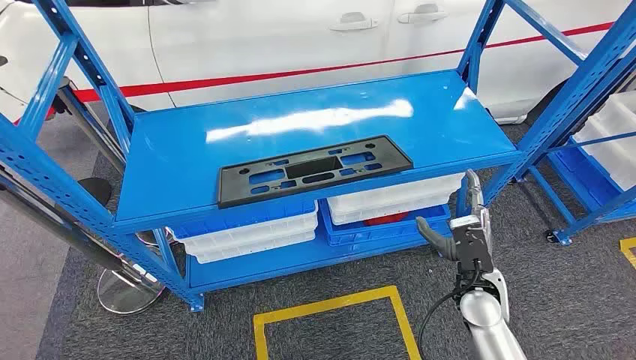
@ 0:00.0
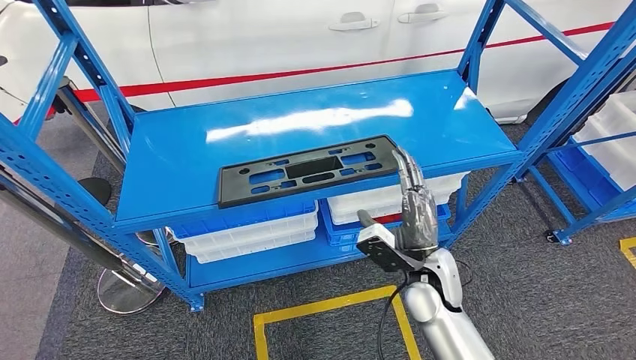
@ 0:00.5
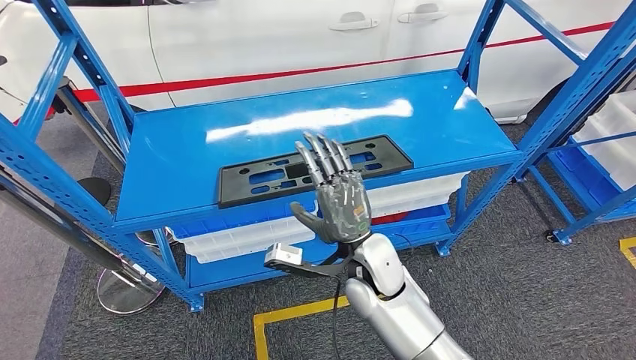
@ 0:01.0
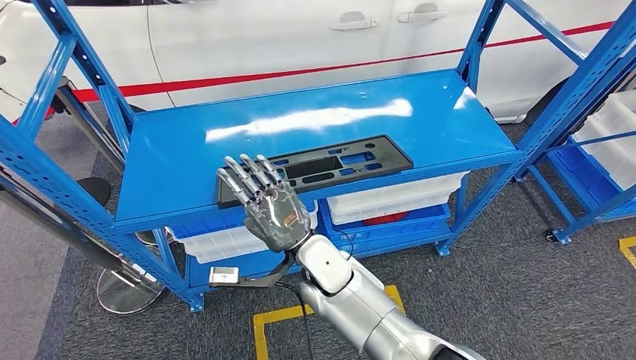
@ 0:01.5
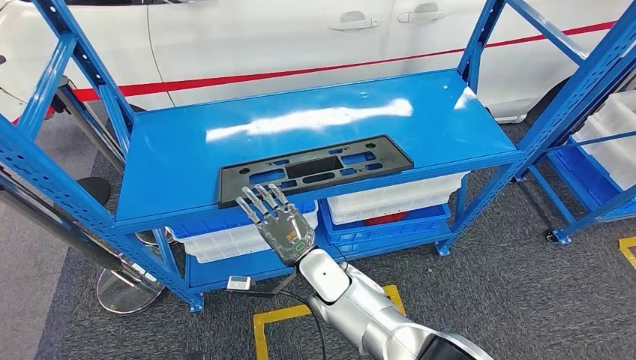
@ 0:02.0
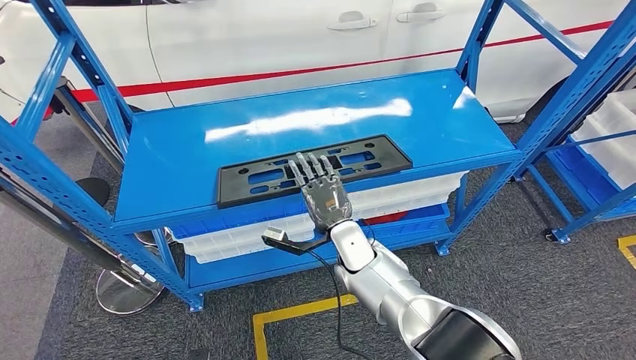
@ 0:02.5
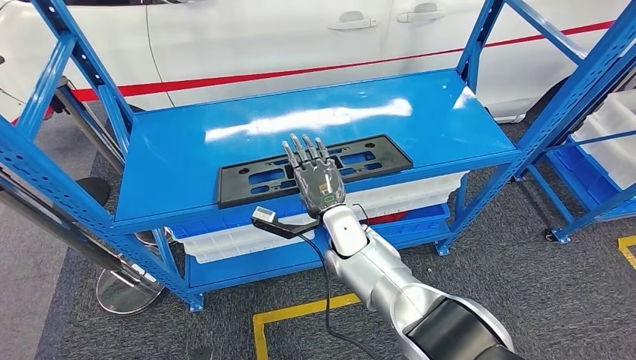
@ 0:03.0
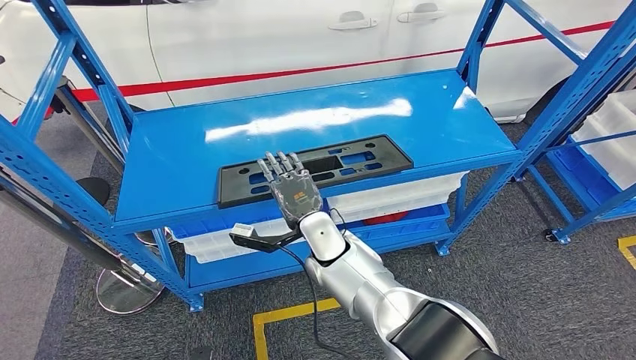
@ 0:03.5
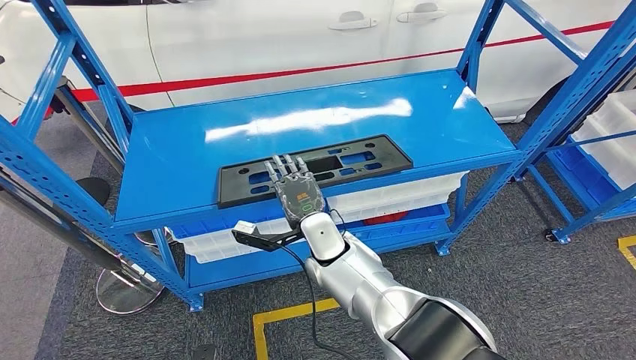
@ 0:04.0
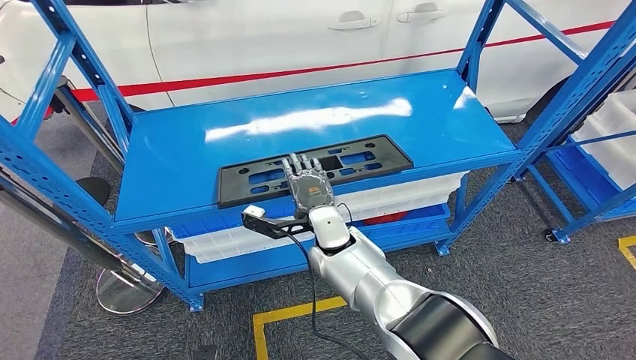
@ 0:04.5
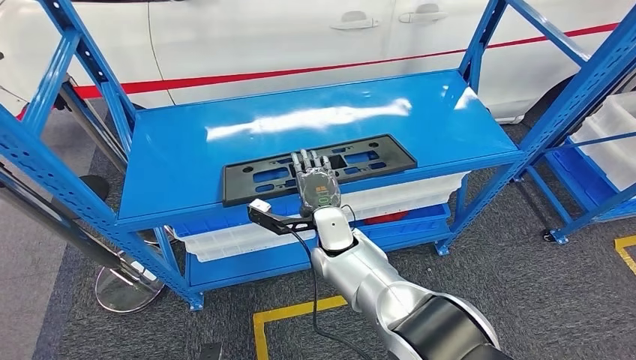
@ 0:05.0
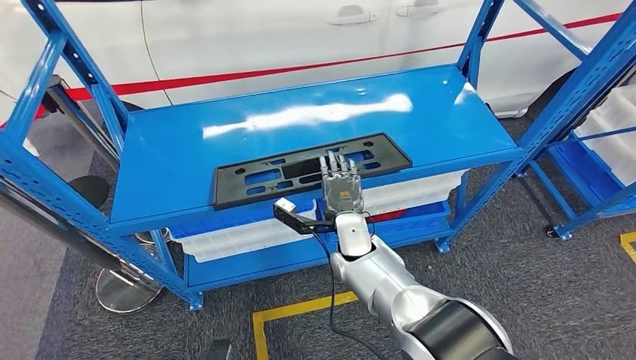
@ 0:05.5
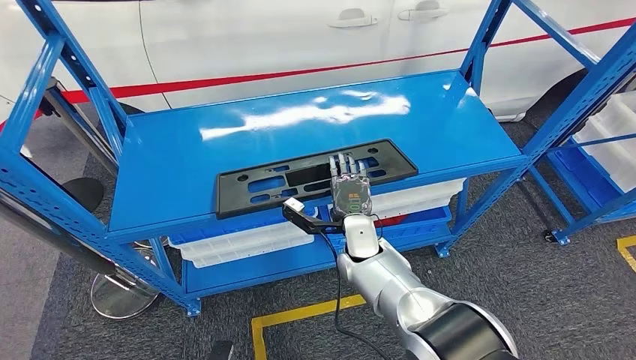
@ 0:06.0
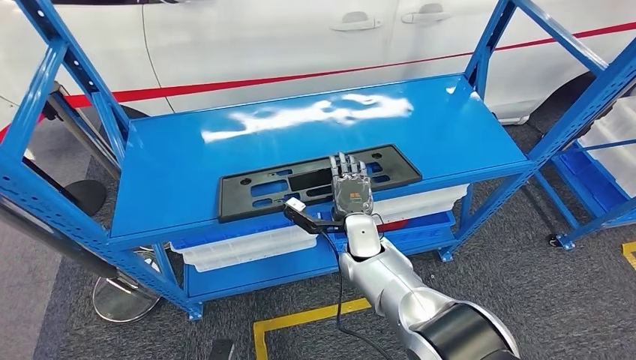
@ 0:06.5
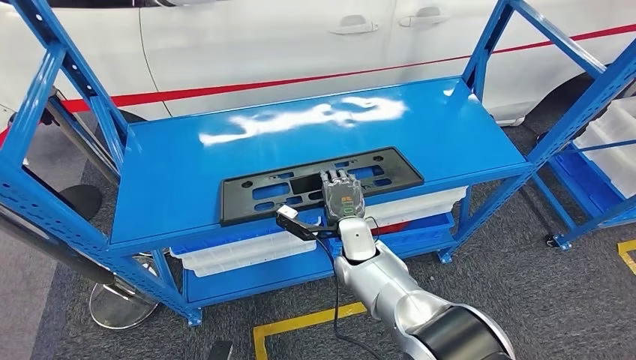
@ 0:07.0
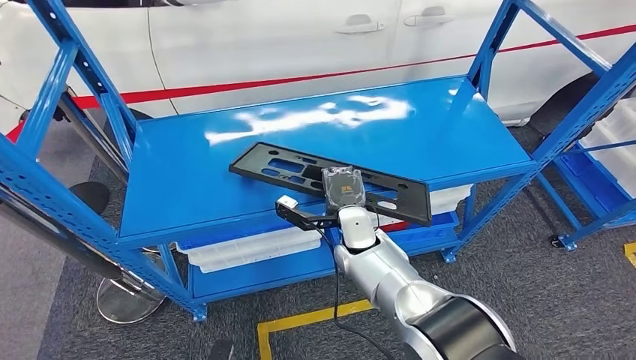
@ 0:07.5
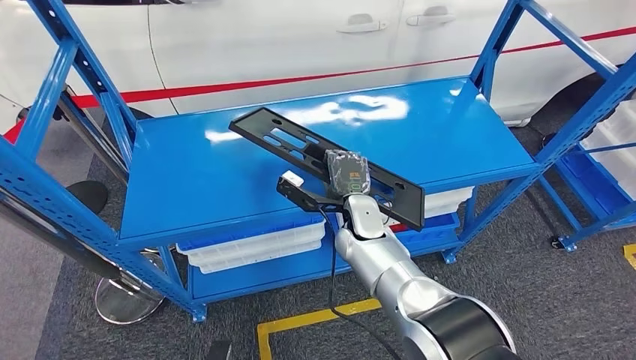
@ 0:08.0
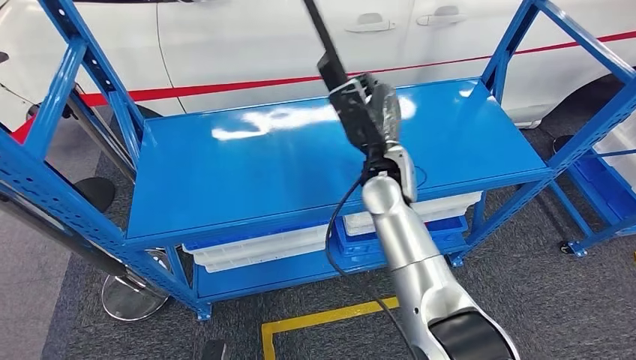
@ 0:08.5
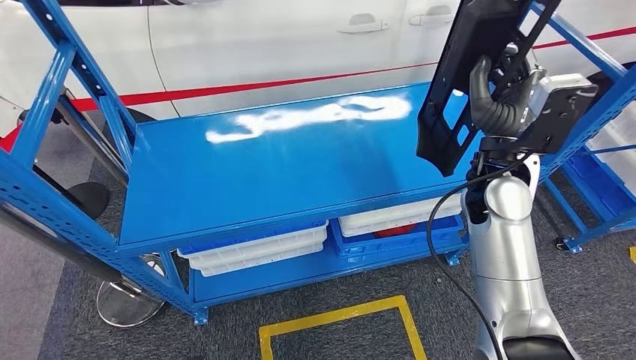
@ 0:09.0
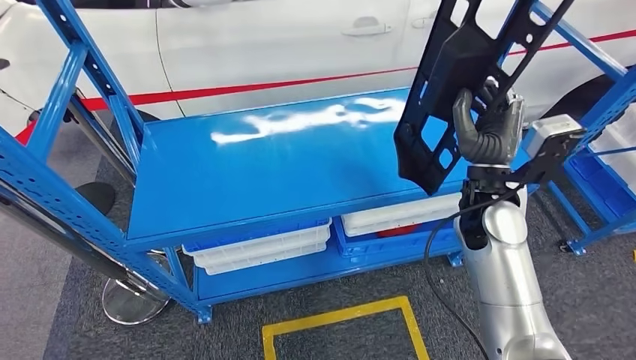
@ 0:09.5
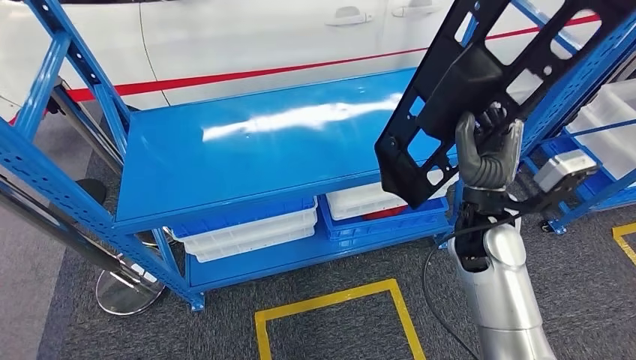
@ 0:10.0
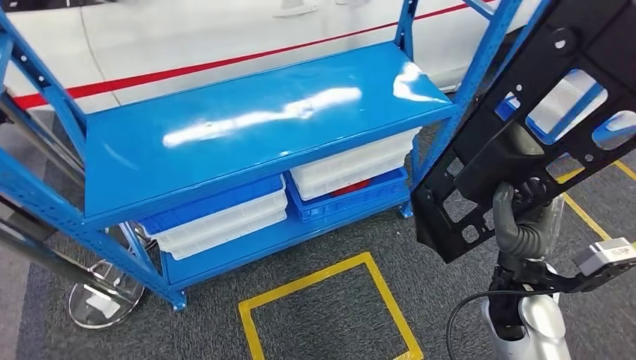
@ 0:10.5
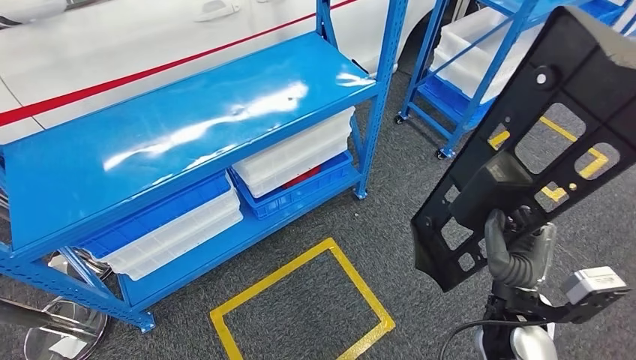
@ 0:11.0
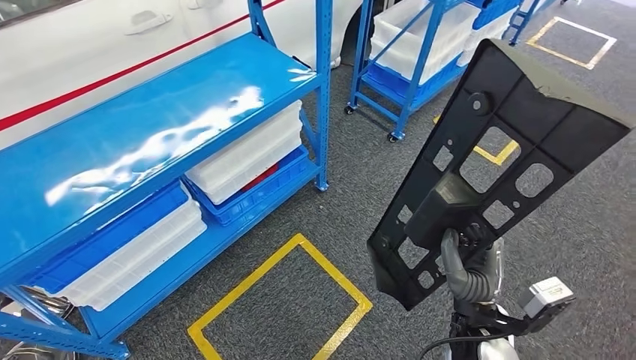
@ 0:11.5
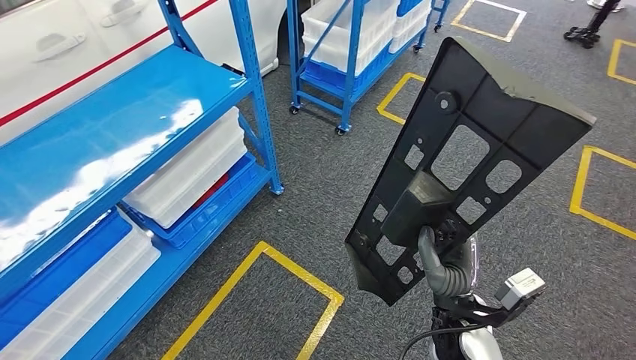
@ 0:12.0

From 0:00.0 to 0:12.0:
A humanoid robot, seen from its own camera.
Step, from 0:00.0 to 0:08.5: Pick up the large material from the shelf.
From 0:02.0 to 0:04.0: The right hand shifts by roughly 5 cm.

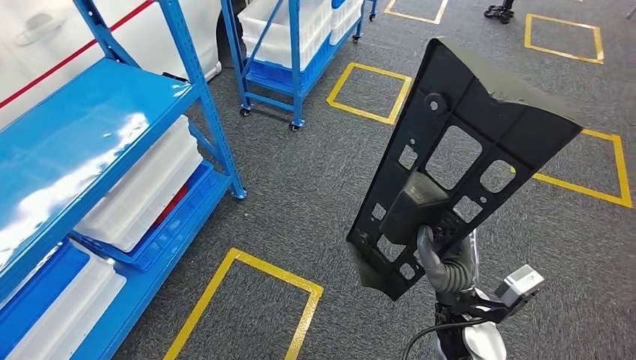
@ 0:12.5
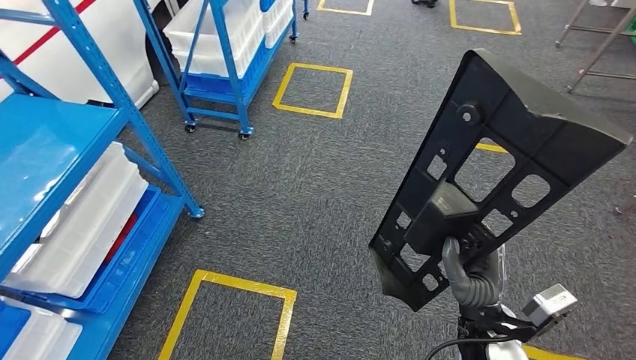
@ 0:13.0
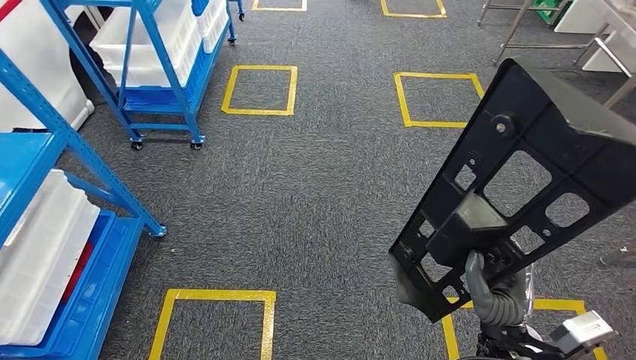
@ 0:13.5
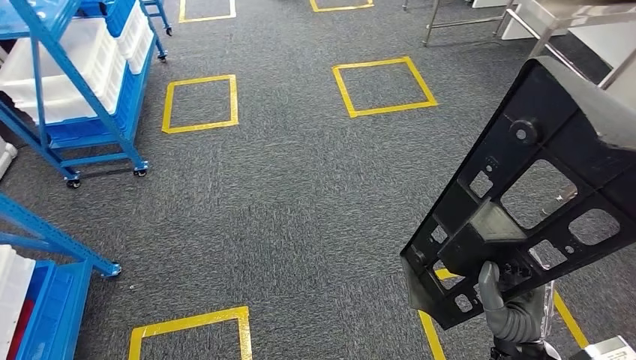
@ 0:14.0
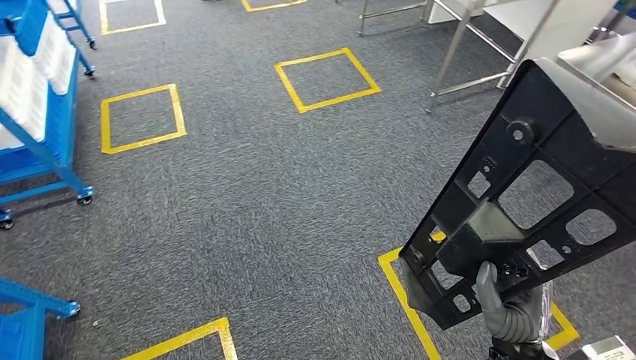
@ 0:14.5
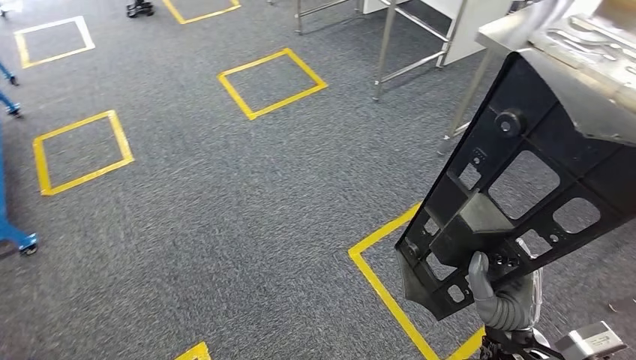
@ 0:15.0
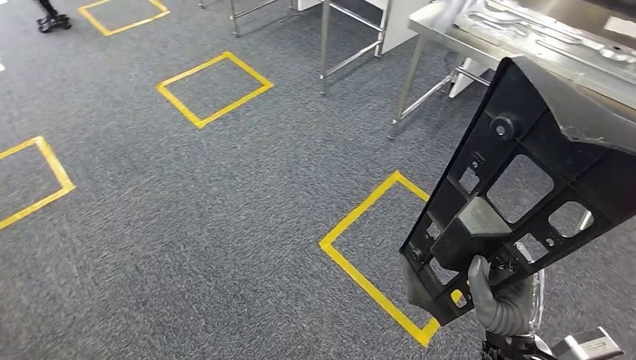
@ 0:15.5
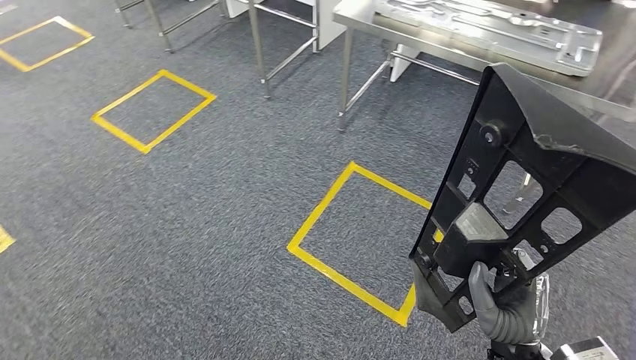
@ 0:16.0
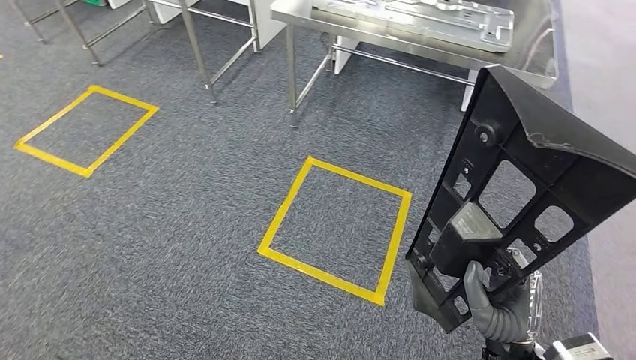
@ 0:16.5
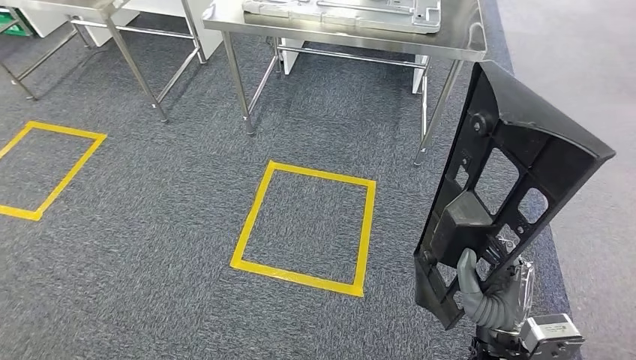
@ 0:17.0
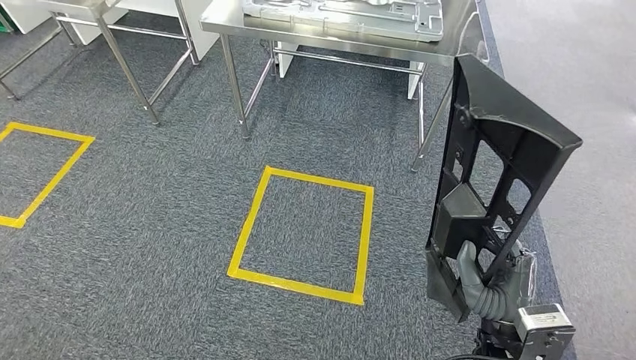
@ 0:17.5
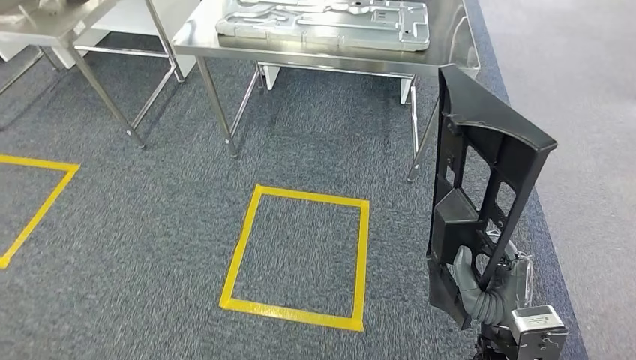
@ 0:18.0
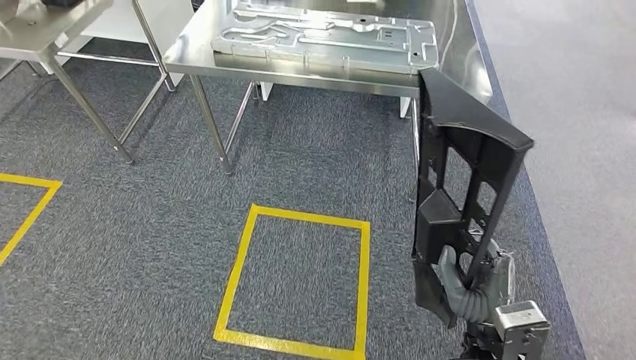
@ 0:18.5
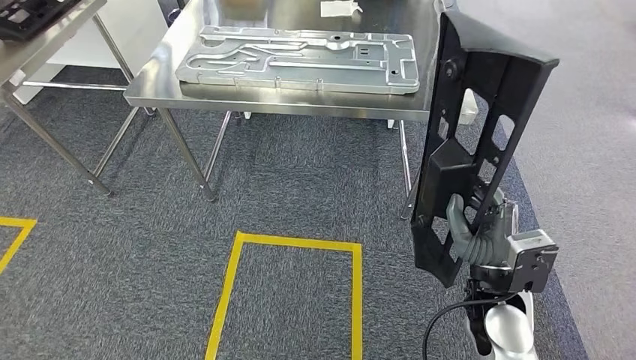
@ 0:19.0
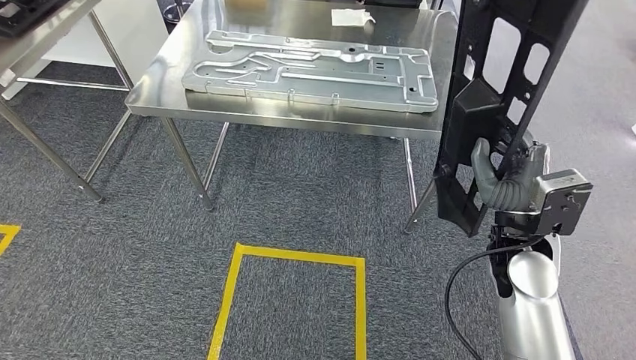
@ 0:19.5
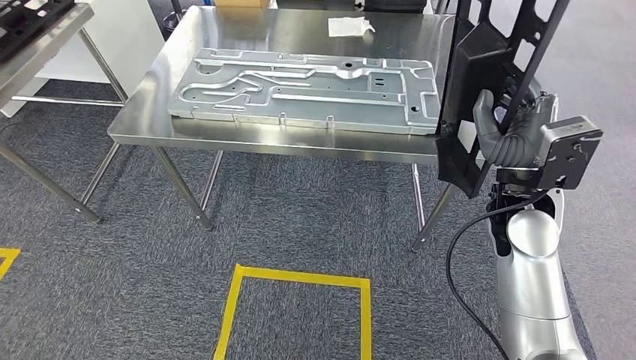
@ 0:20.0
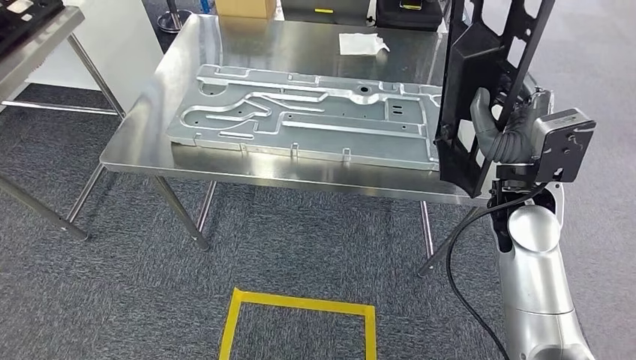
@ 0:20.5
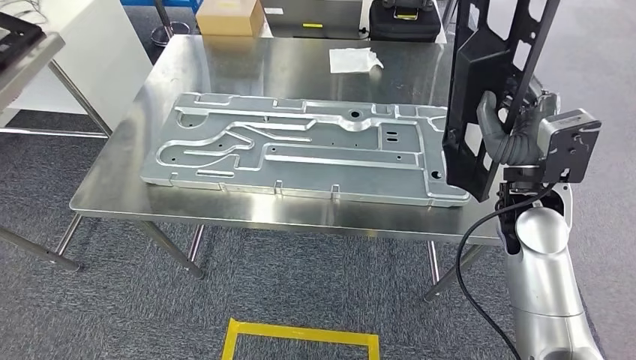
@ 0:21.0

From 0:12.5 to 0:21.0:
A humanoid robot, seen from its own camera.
Step, from 0:12.5 to 0:20.5: Move the large material to the workbench.
